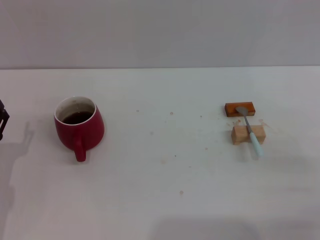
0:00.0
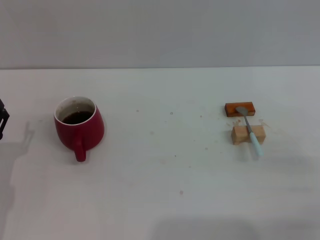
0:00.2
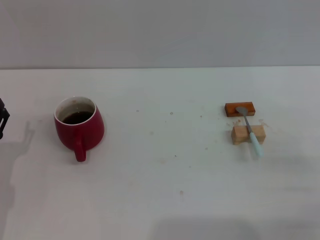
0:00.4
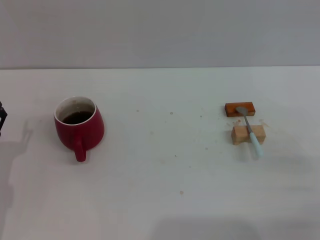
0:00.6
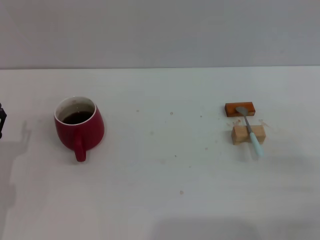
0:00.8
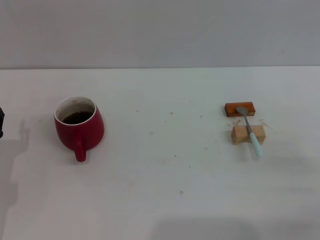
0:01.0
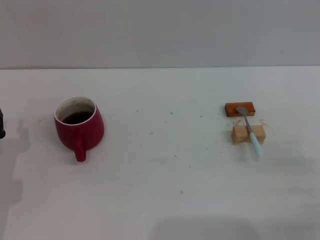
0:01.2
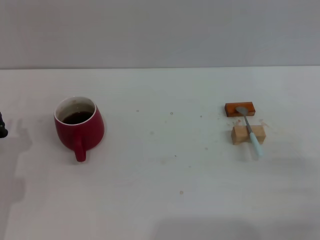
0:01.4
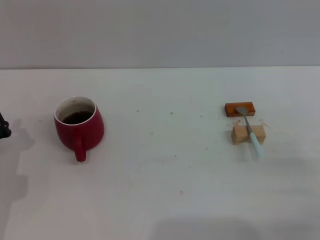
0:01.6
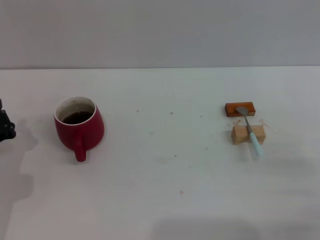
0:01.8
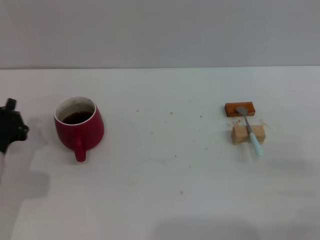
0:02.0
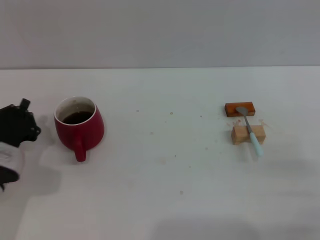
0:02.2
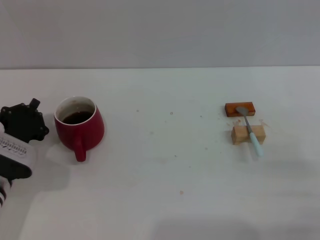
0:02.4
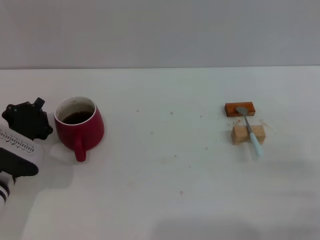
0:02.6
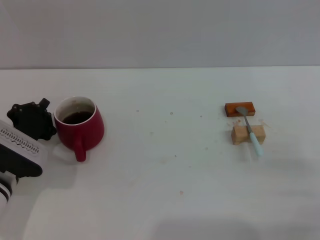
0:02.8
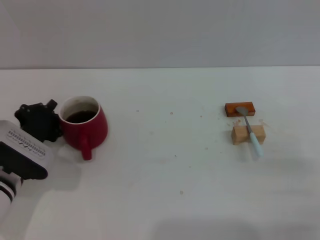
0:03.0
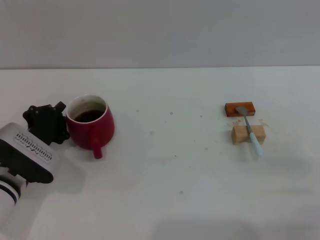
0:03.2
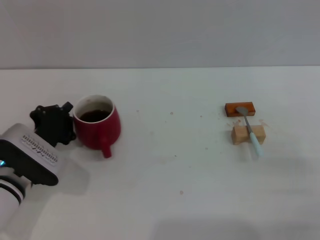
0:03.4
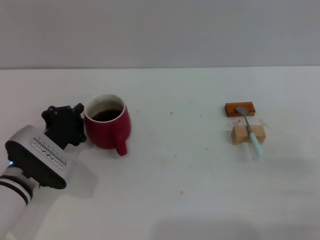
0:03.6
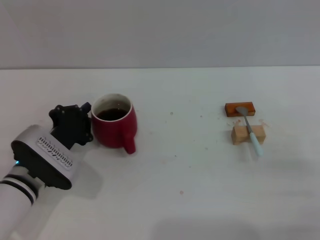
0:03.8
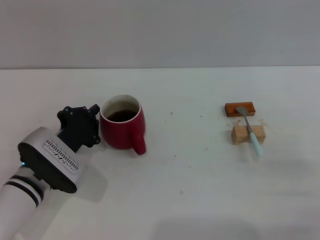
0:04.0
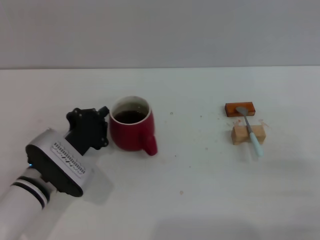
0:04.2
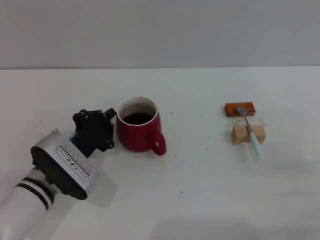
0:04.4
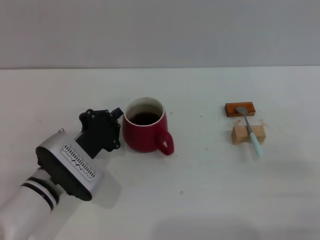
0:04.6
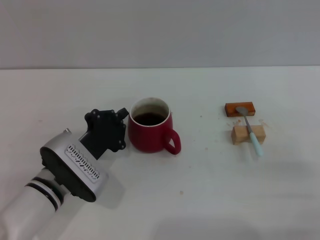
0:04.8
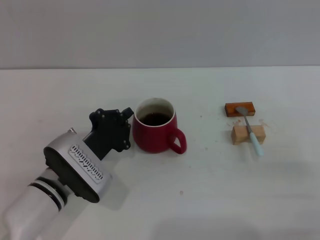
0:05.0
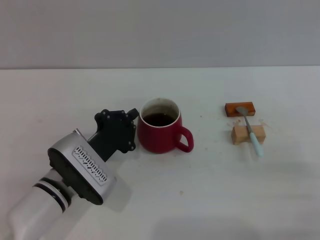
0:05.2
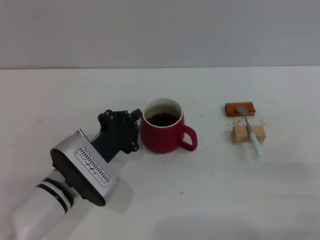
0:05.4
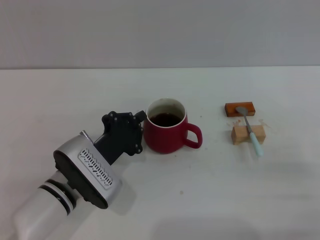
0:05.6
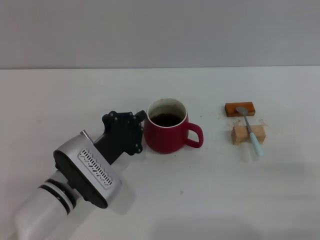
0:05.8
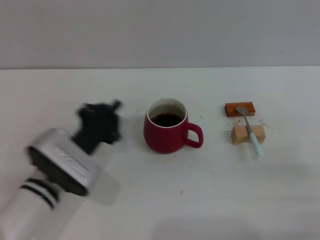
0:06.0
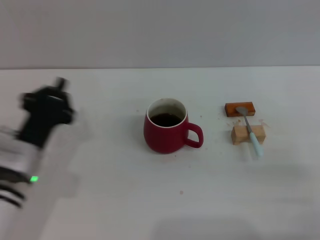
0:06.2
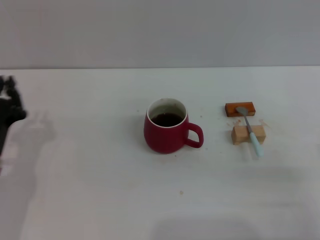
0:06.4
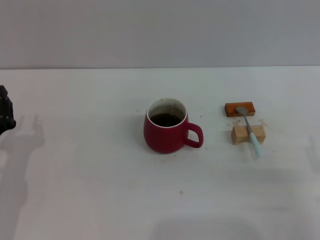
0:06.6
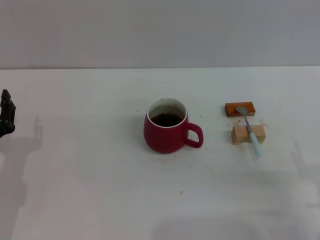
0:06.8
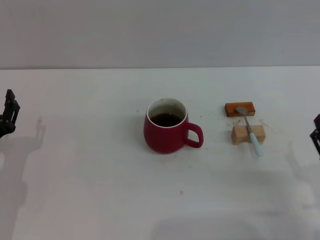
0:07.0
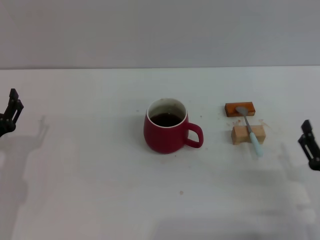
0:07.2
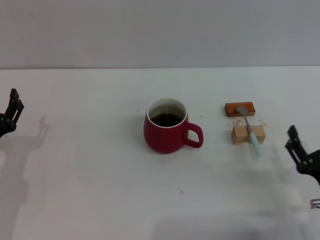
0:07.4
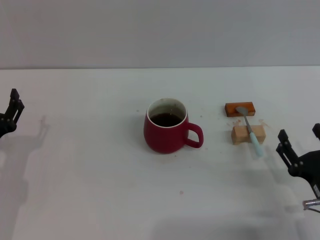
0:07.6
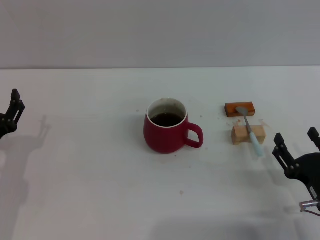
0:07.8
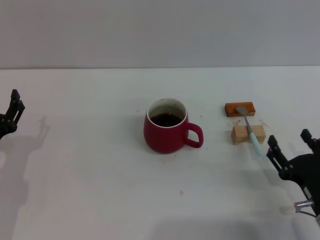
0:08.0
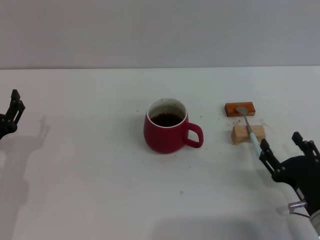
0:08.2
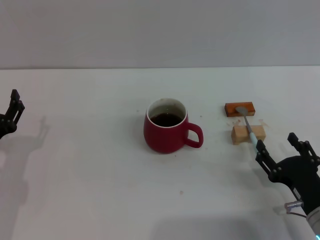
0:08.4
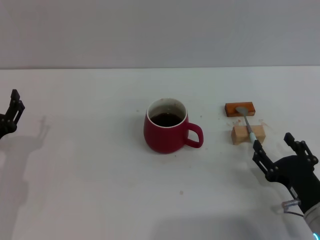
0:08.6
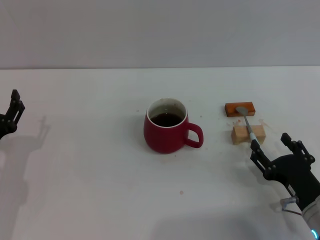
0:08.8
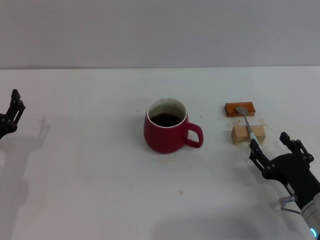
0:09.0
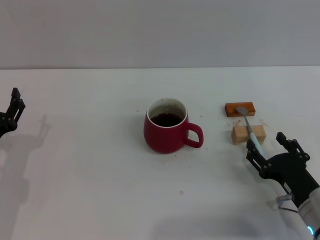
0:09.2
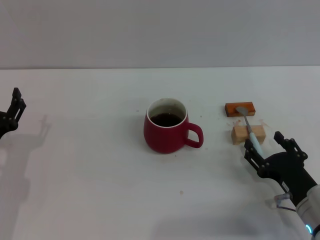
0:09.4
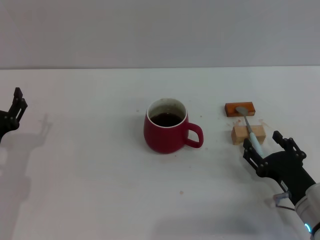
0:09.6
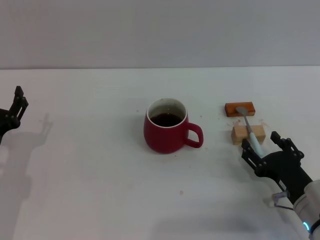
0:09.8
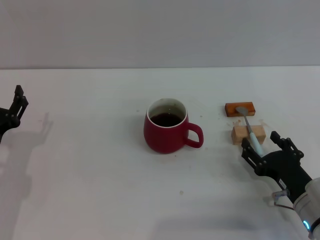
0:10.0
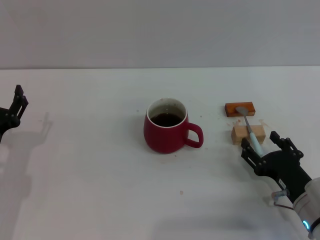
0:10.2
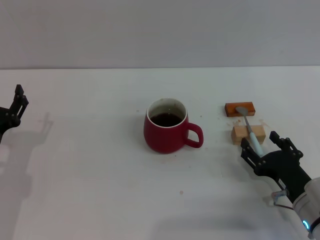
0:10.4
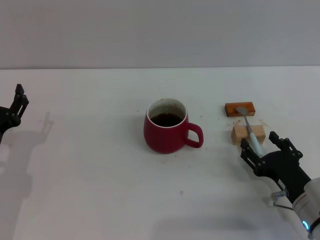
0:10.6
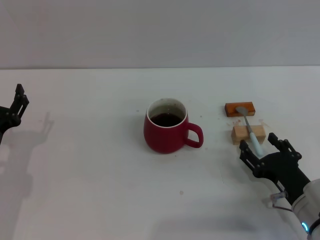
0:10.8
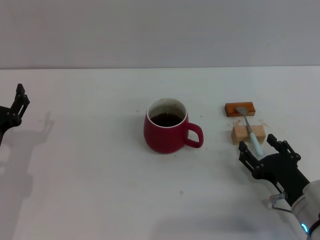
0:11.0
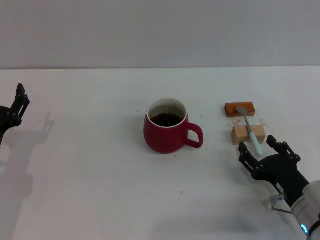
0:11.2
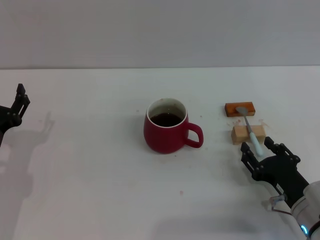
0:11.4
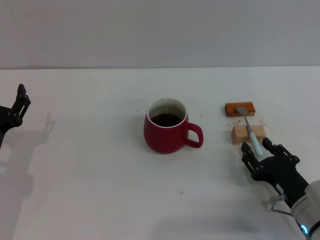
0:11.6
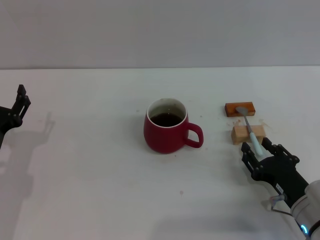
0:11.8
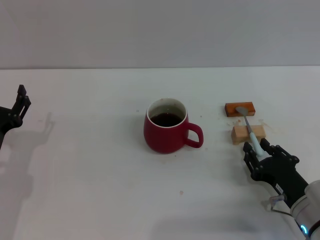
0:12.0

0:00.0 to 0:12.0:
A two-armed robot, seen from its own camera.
Task of the whole recording: Move the red cup to the center, lift the blue spoon, stir it three times in the cup, and put the spoon into the cup.
Step, 0:00.0 to 0:05.8: Move the cup with coffee to the center of view with the left gripper.
0:01.6 to 0:03.0: The left gripper moves roughly 5 cm.
0:03.0 to 0:04.4: The left gripper is displaced to the right by roughly 5 cm.
0:04.4 to 0:06.0: The grippers stay close to where they were, moving slightly.
0:06.0 to 0:07.6: The left gripper goes approximately 10 cm to the left, and opens up. The right gripper travels to the left by some 5 cm.
0:07.6 to 0:10.4: The grippers stay close to where they were, moving slightly.
0:10.4 to 0:12.0: The right gripper closes its fingers.

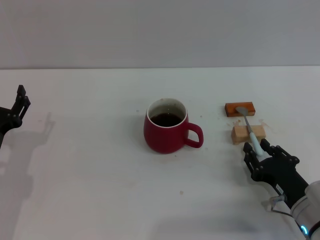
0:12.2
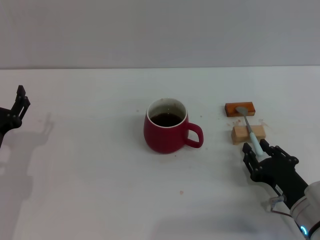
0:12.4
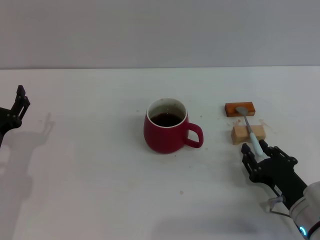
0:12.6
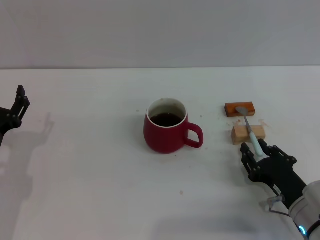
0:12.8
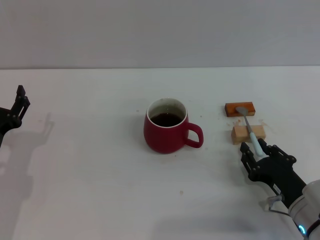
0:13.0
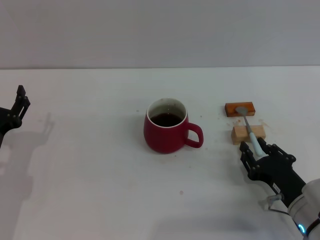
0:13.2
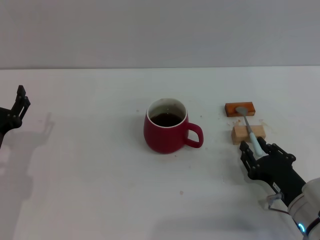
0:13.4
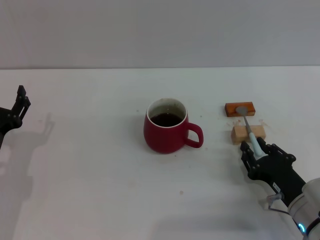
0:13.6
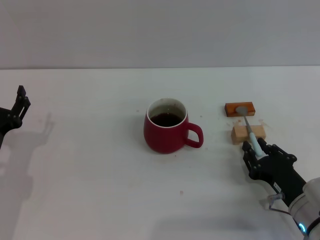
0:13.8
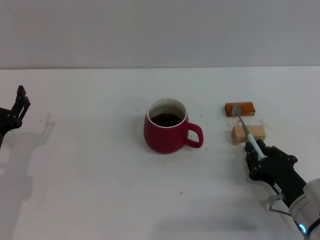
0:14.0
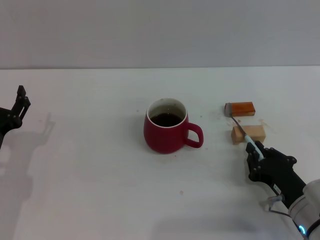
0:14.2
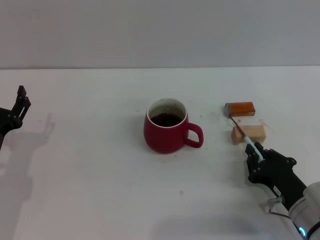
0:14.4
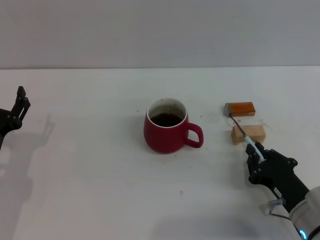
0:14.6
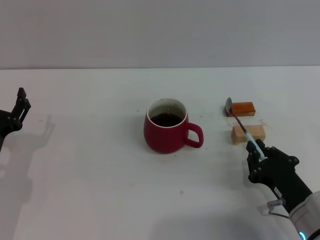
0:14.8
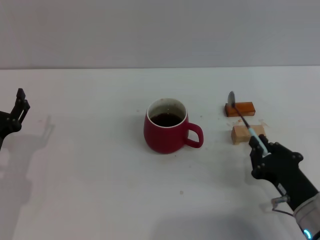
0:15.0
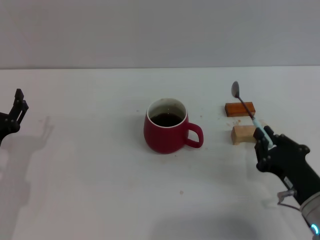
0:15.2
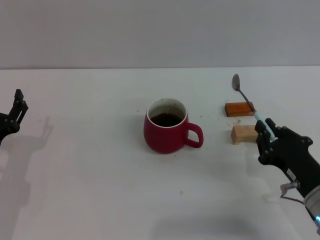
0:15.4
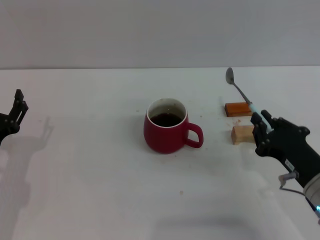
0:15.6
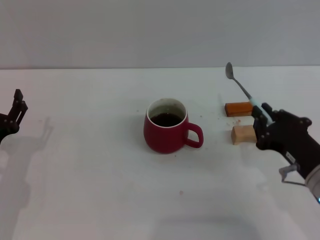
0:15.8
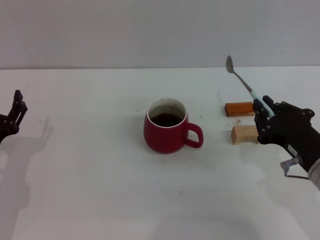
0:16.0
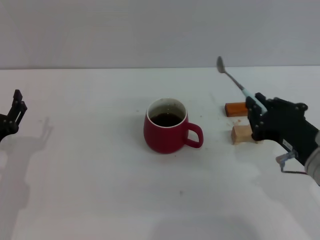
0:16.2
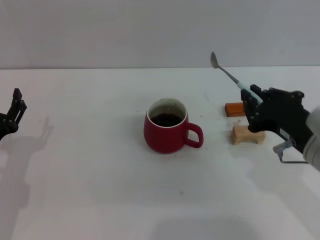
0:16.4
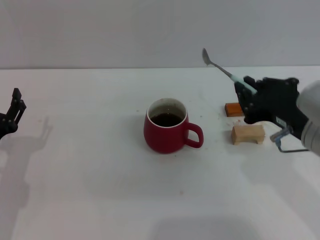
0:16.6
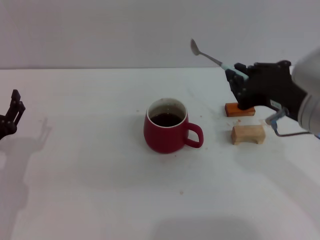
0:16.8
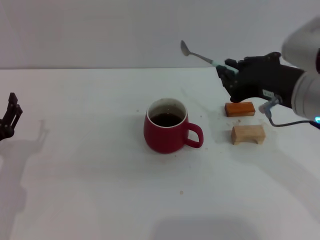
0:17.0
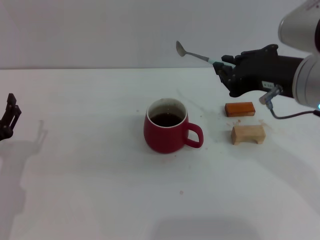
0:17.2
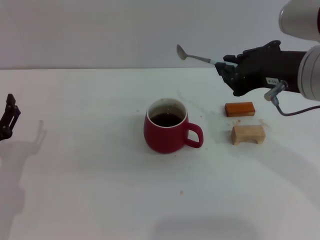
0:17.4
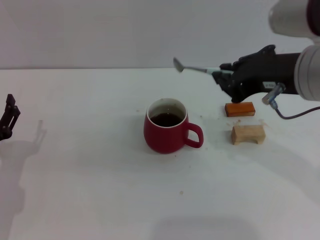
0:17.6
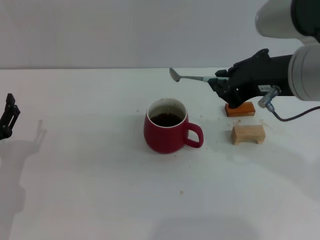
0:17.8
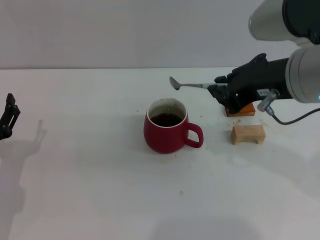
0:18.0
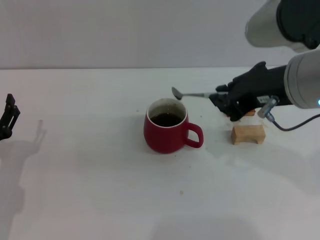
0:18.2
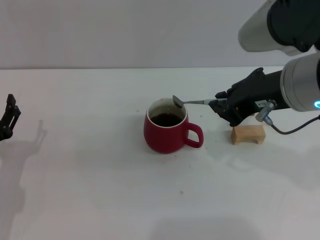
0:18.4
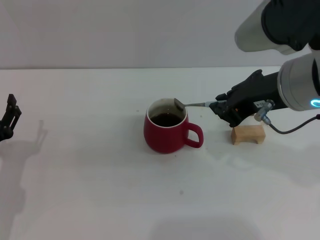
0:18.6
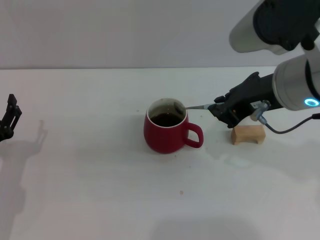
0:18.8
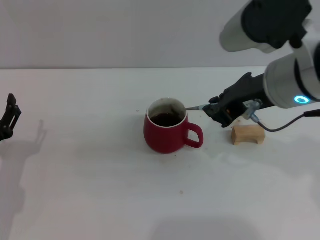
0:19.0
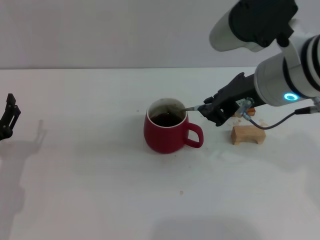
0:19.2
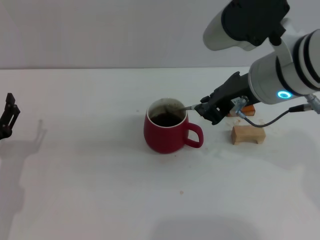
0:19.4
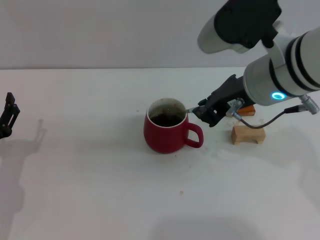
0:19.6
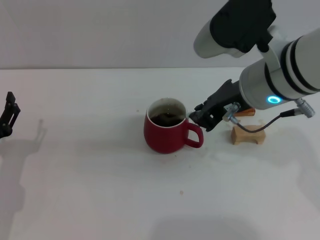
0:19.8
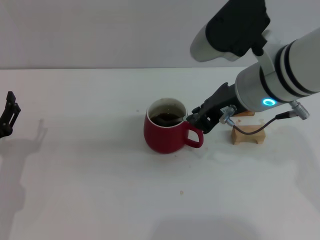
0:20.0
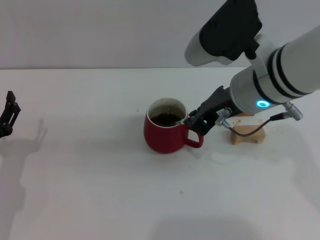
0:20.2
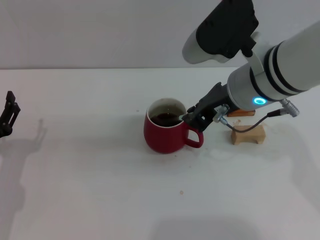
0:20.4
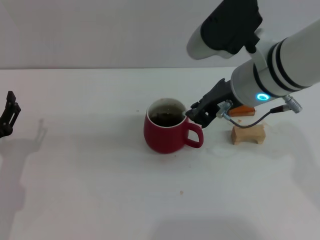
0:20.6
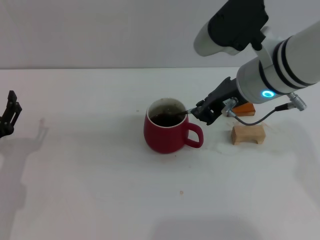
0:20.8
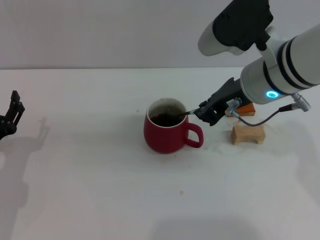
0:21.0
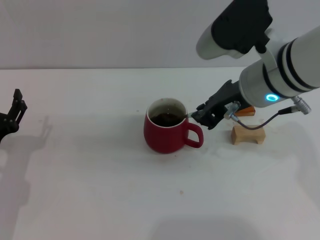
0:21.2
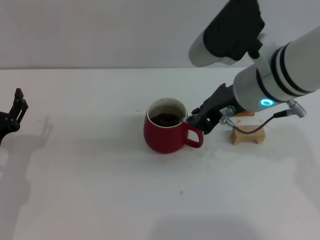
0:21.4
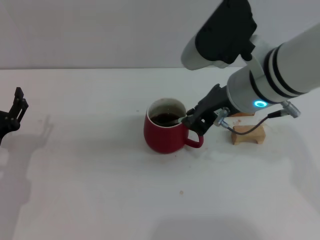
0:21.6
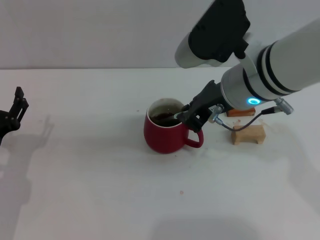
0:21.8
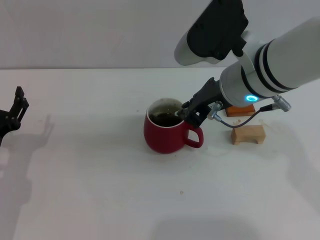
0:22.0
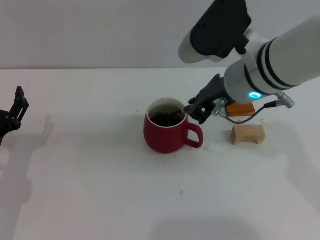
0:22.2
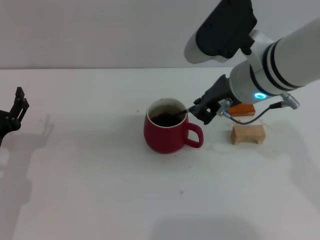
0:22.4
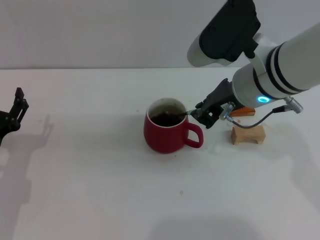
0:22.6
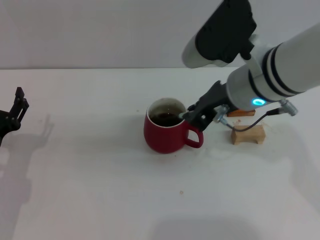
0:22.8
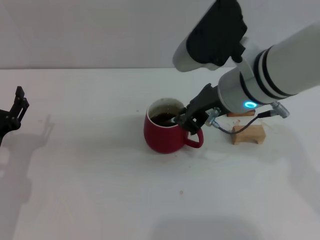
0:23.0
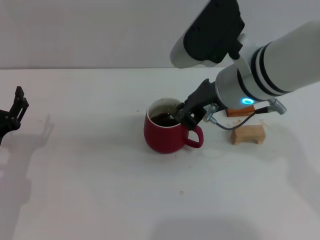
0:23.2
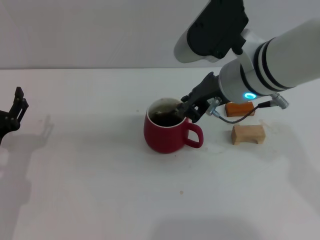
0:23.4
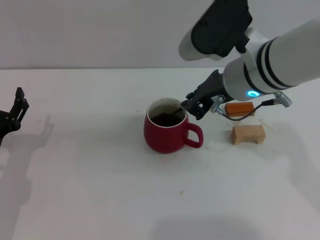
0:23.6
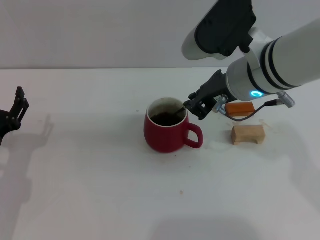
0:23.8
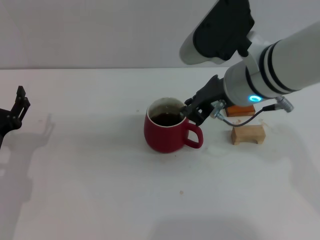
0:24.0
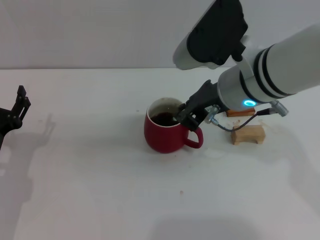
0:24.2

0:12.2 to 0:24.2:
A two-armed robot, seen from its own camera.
Task of the whole recording: Move the red cup to the center, lift the blue spoon, stir it three times in the cup, and put the spoon into the cup.
Step, 0:12.2 to 0:15.0: Pick up the spoon with the right gripper.
0:12.2 to 0:13.8: The two grippers keep their place.
0:13.8 to 0:15.2: The right gripper closes its fingers.
0:15.2 to 0:16.6: The right gripper heads upward, covering roughly 15 cm.
0:16.6 to 0:18.2: The right gripper travels upward by about 10 cm.
0:18.2 to 0:19.8: The right gripper moves some 5 cm.
0:19.8 to 0:24.2: The grippers make only small movements.
